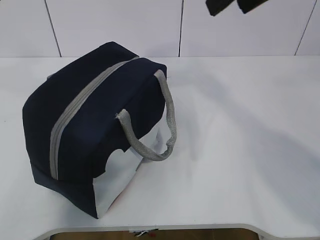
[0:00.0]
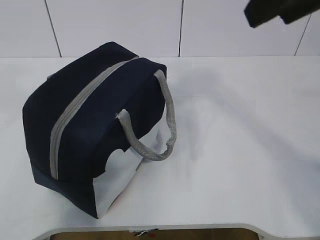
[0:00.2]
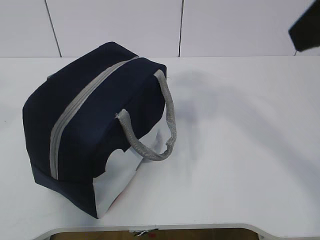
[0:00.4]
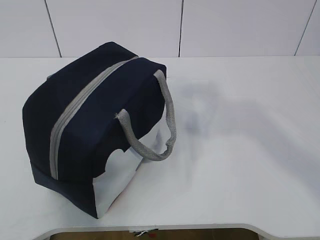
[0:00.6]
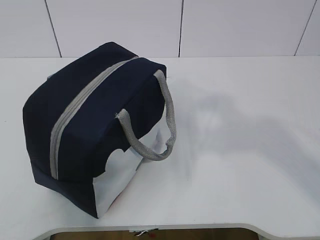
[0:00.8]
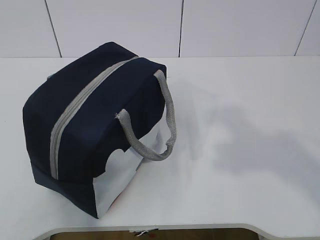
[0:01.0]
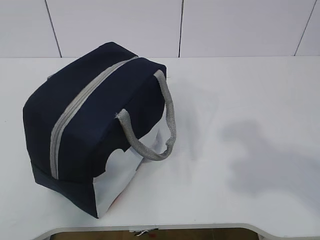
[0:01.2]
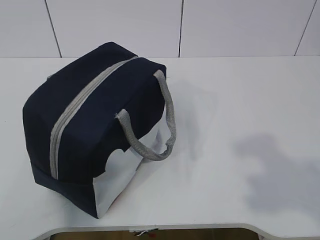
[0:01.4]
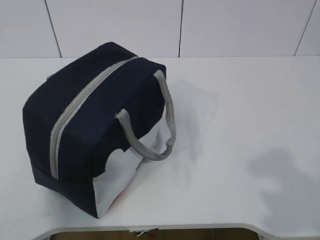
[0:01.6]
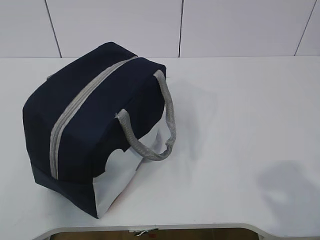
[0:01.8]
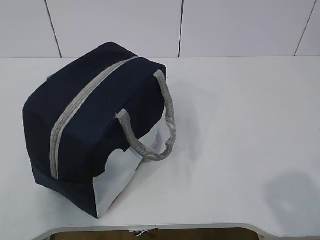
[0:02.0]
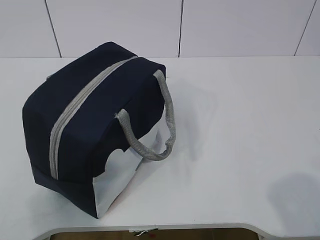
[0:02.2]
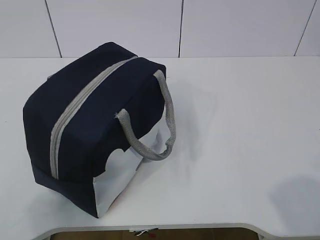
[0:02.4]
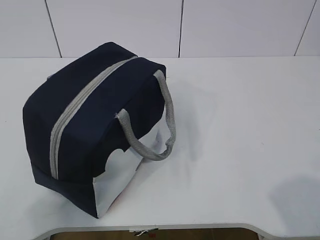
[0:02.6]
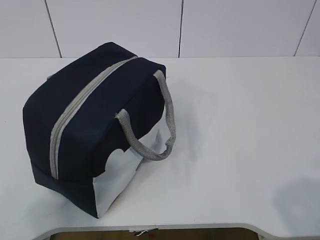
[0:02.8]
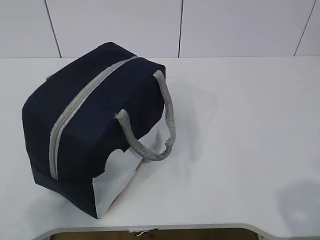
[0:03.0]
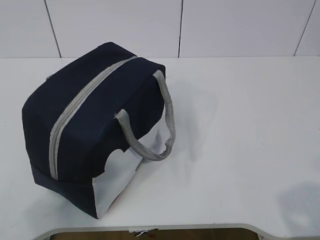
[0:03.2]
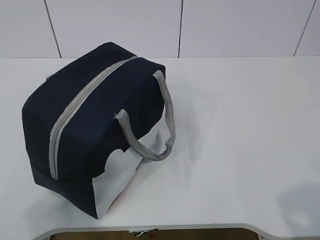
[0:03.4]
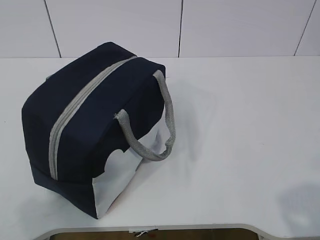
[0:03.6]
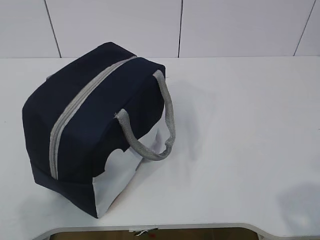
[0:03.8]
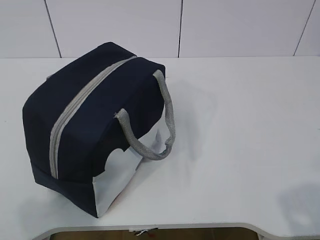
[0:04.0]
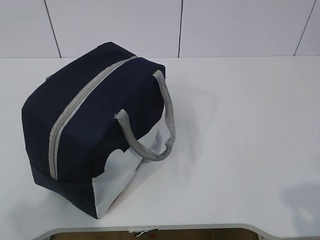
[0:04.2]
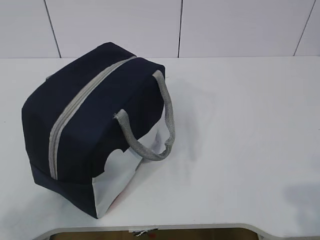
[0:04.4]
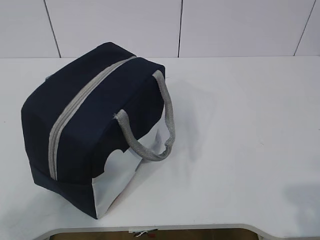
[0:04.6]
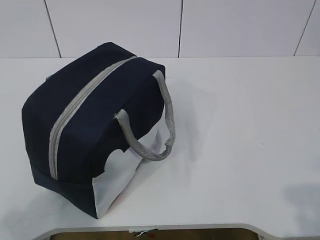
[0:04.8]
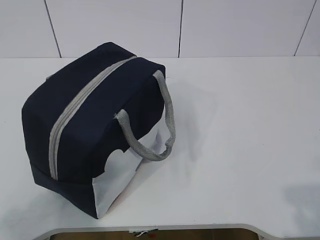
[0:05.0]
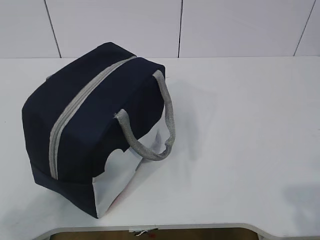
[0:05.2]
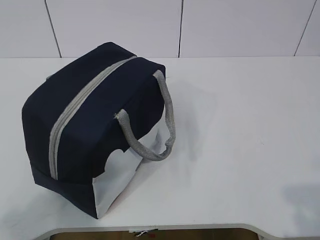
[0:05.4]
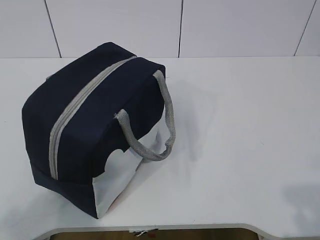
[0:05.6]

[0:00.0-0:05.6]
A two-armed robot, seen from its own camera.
0:00.0 to 0:01.4: The right gripper shifts about 30 cm backward and to the right. Meanwhile the left gripper goes roughly 25 cm backward and to the left.
0:01.4 to 0:02.8: The right gripper moves downward, about 10 cm.
0:02.8 to 0:04.2: There are only small adjustments of the grippers.

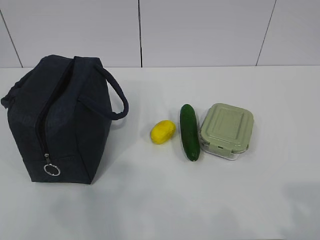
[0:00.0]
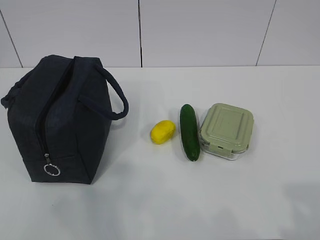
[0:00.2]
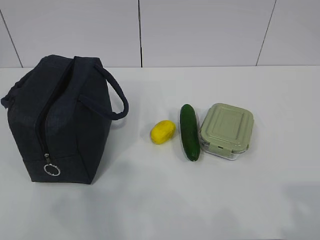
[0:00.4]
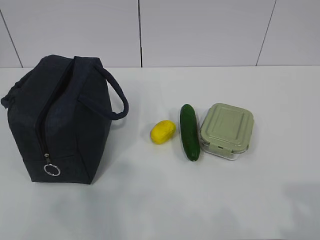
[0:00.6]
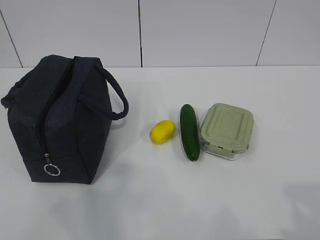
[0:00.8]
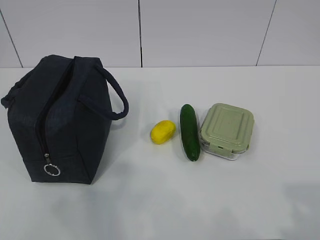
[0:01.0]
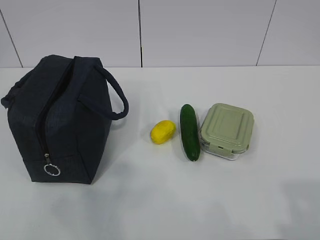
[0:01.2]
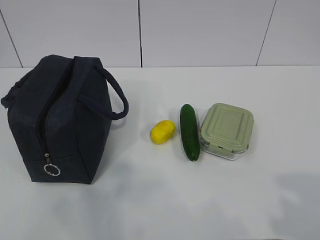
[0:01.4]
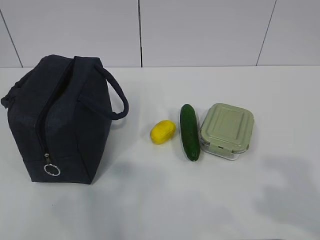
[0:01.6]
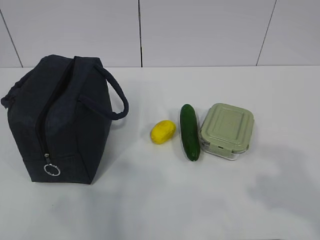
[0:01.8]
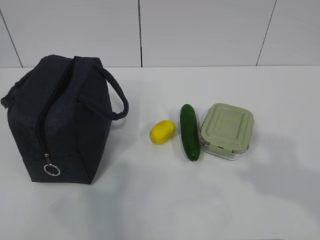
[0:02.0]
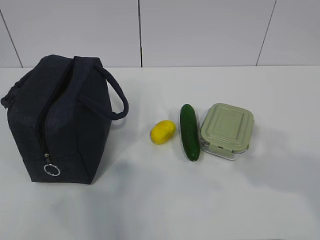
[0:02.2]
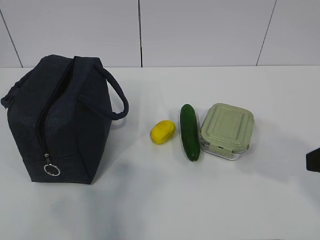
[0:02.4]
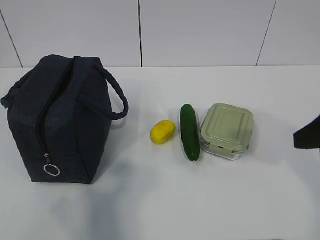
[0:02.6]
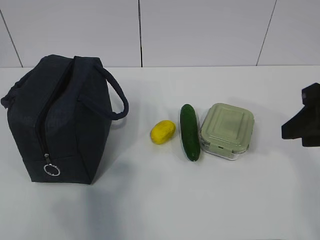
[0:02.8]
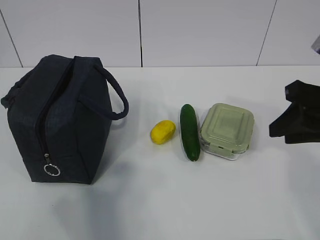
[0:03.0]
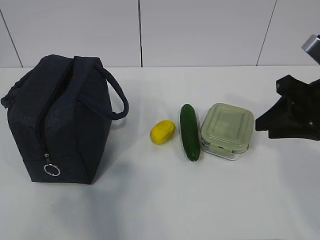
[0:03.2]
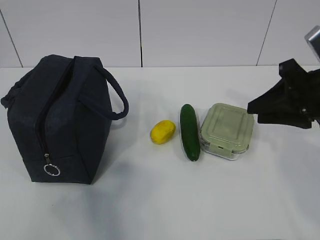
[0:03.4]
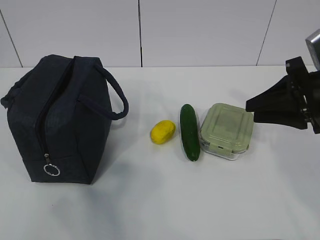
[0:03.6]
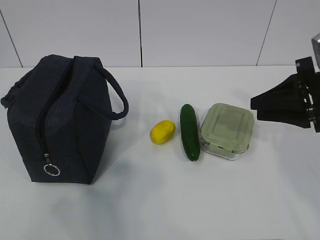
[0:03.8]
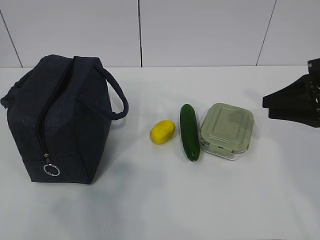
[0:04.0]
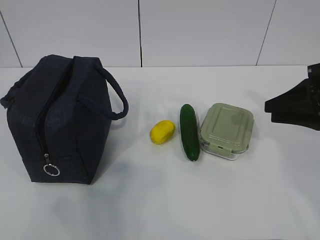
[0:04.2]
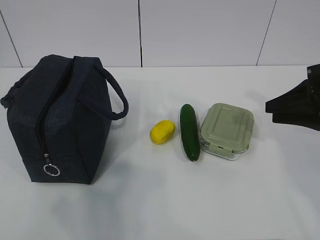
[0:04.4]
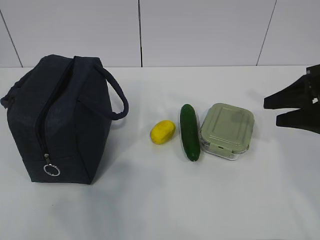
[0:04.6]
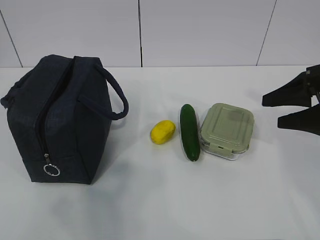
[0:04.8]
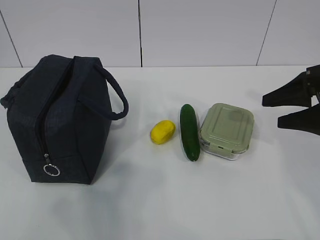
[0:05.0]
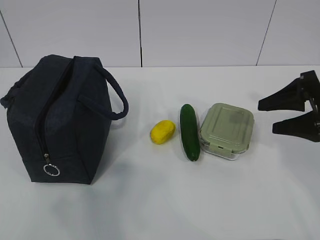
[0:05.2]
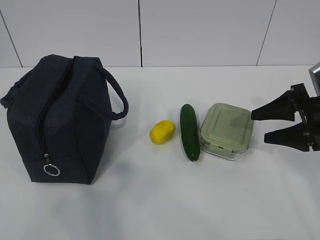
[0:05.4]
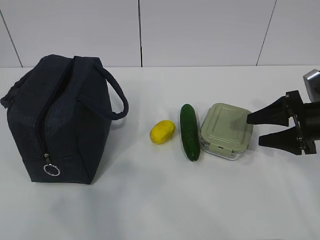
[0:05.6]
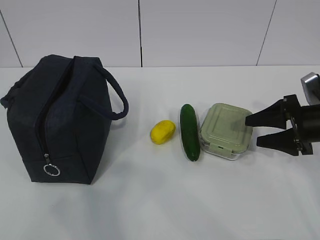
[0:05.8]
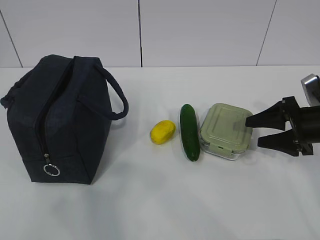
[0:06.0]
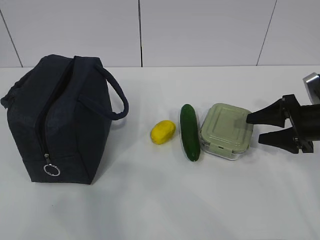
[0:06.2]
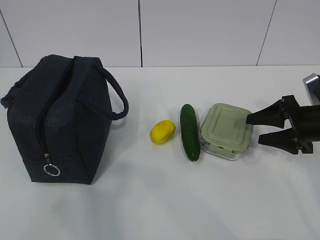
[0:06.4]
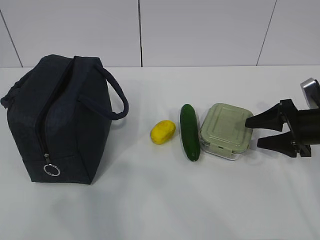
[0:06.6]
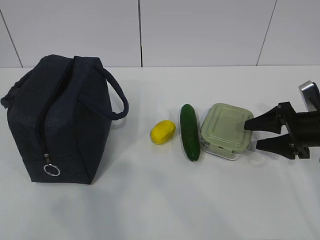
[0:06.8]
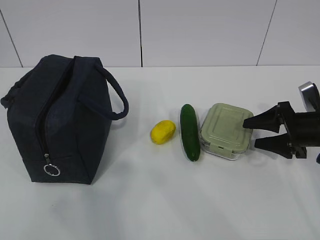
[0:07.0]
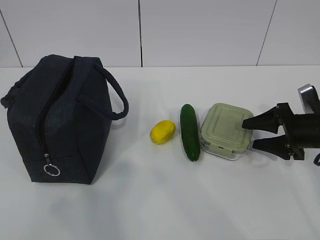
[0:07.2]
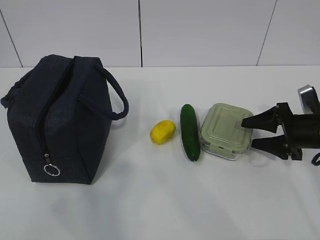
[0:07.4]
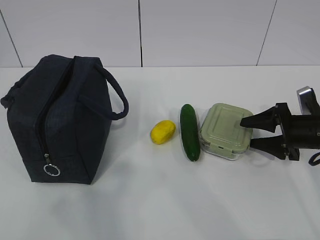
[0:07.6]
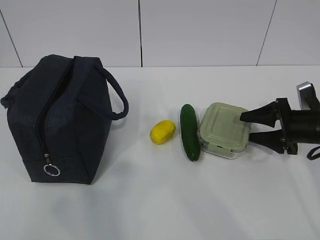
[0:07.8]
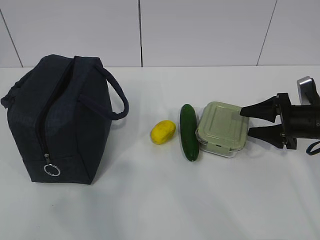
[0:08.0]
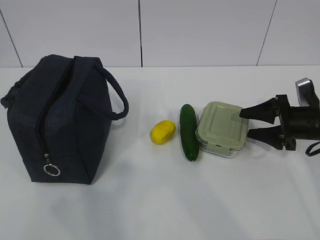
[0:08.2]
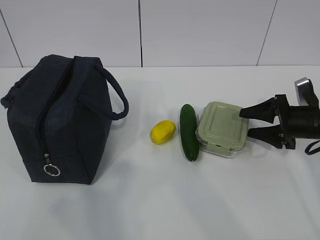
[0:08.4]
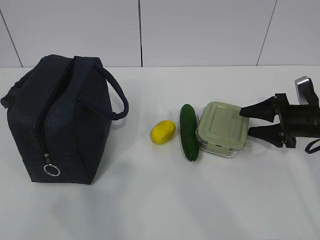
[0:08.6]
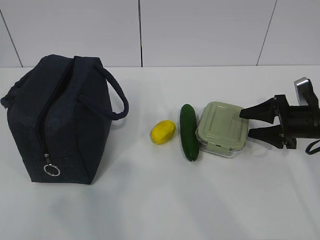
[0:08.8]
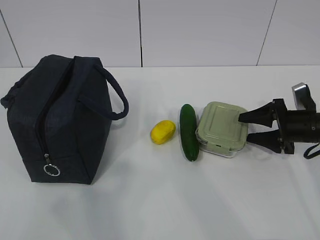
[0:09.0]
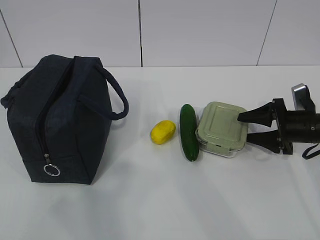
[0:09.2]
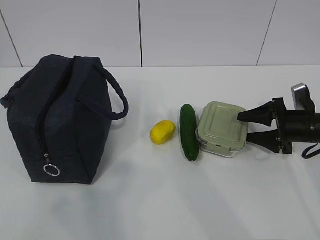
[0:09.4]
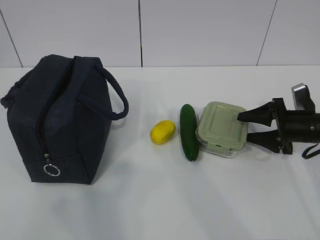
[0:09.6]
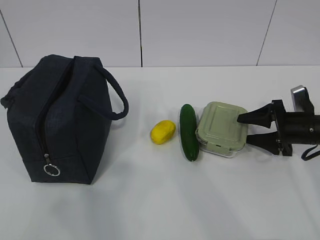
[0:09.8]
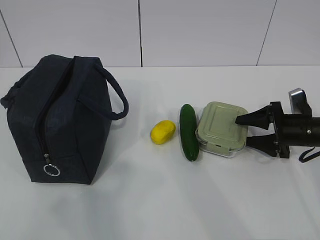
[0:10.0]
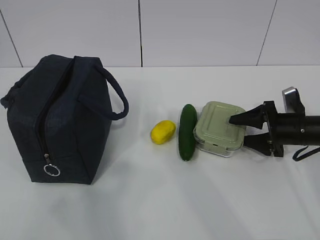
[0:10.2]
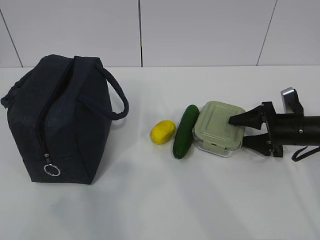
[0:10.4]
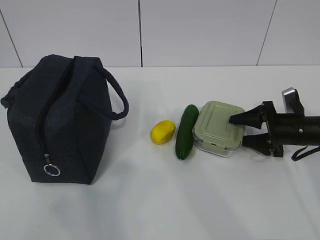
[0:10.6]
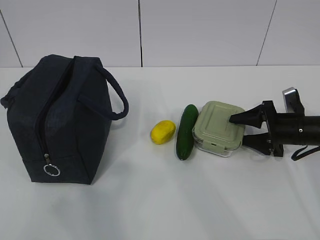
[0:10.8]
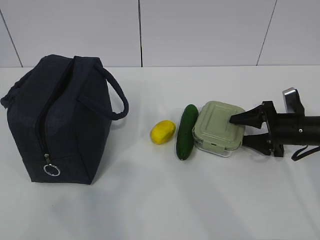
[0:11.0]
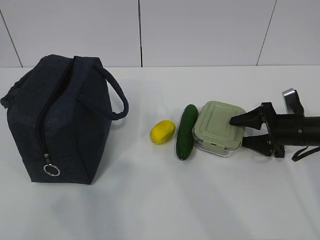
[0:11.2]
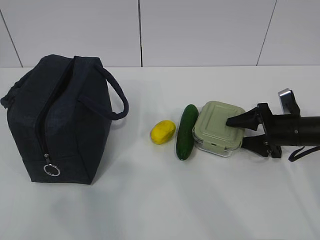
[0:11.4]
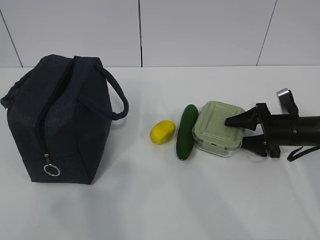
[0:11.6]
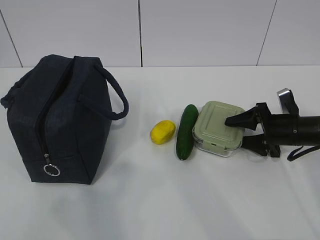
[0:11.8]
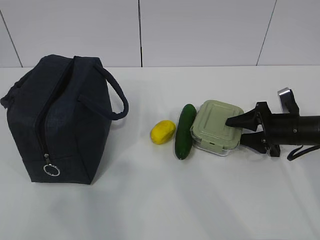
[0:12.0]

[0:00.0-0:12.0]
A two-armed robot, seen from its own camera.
Step, 0:00.0 to 0:10.0: Grab the lunch box with your right hand.
0:01.6 to 0:03.0: The right gripper goes some 20 cm forward.
0:03.0 to 0:04.4: The right gripper travels to the right by roughly 5 cm.
0:04.4 to 0:06.0: The right gripper is displaced downward by some 10 cm, and opens.
0:06.0 to 0:07.6: The grippers move only a little.
0:07.6 to 0:10.4: The grippers make only small movements.
0:10.4 to 0:12.0: The two grippers keep their place.

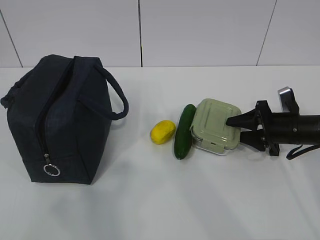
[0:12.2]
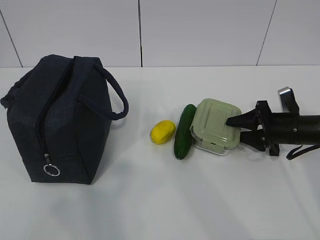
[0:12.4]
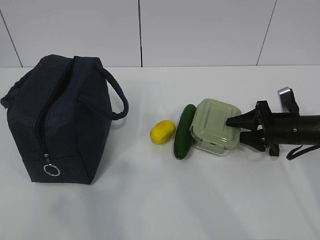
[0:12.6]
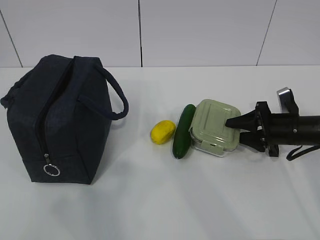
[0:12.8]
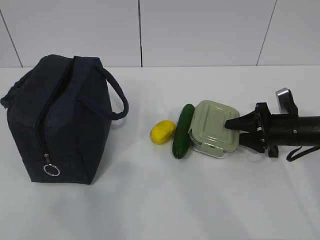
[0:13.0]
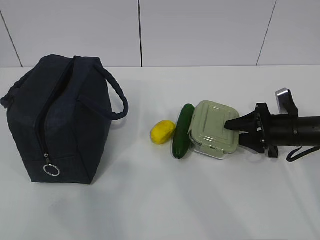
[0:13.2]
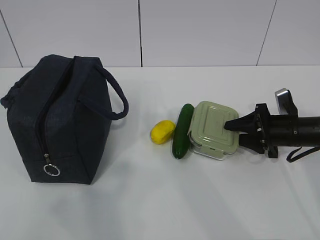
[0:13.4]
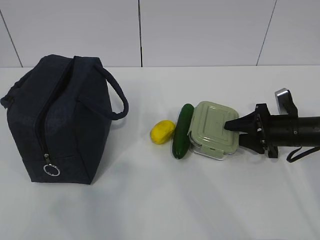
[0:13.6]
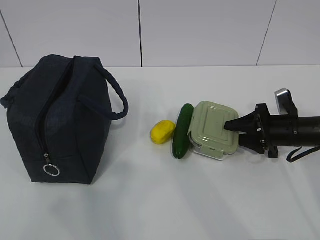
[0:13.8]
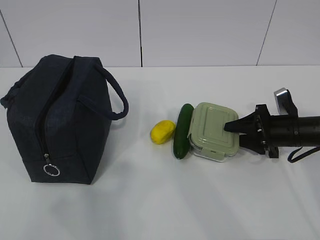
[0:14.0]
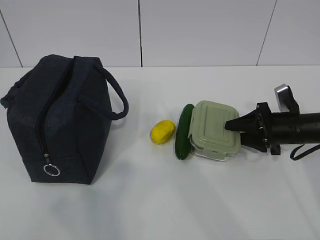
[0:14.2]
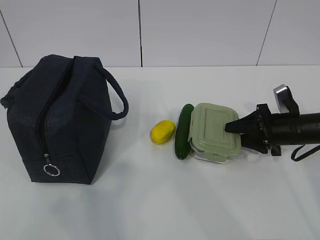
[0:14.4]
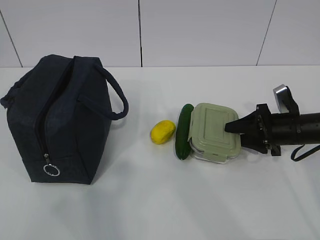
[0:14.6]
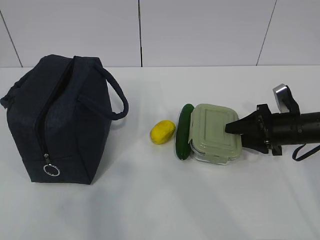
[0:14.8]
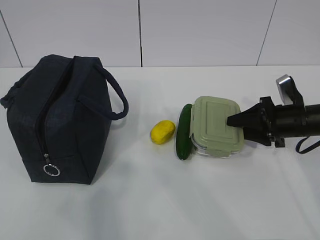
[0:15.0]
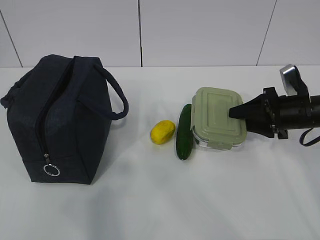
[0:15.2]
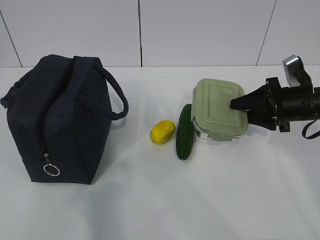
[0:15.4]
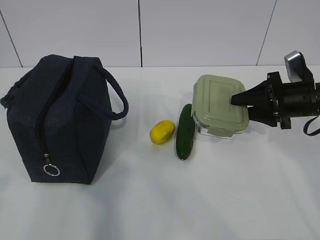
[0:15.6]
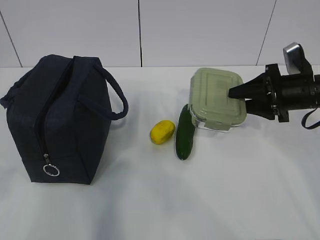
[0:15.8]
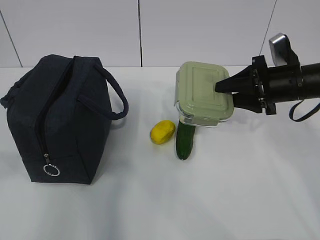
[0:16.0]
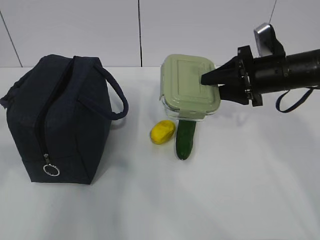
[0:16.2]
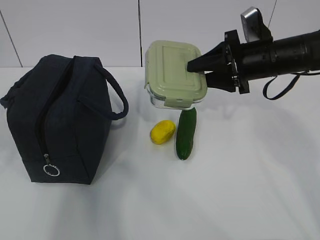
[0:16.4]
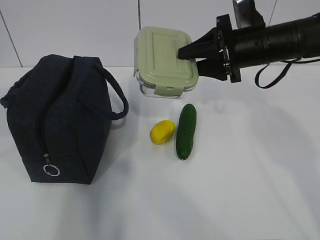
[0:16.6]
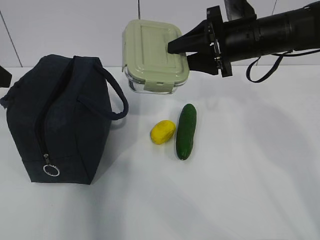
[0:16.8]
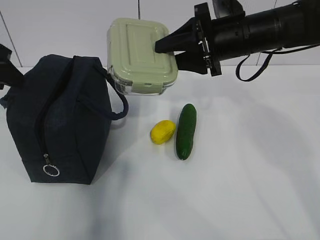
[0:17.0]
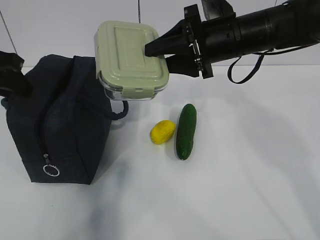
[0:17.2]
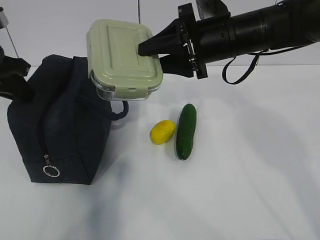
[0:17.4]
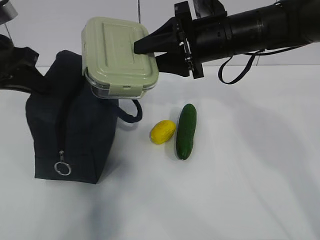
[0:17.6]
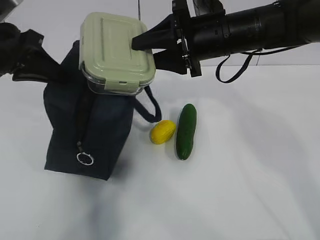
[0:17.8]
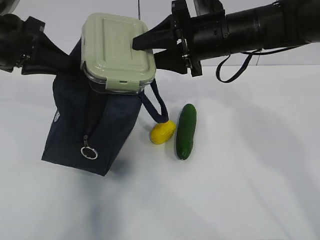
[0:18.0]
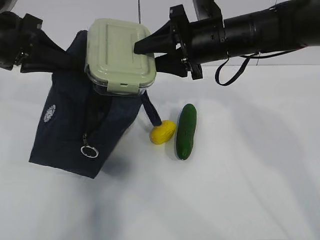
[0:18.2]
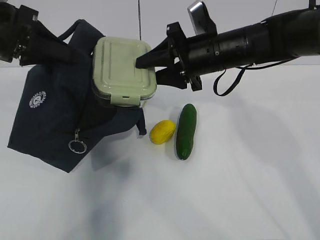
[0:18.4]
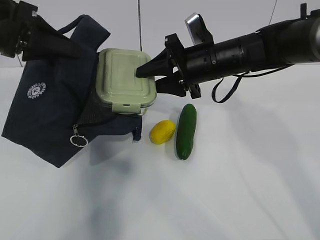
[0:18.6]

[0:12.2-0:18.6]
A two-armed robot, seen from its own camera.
Step, 0:12.2 to 0:14.8: Grab the lunch bag with your left hand.
Step, 0:15.0 to 0:17.6: Place it into the bag with your right hand.
0:12.2 to 0:13.8: Both grippers stay put.
0:13.8 to 0:15.4: The right gripper moves upward, roughly 5 cm.
0:15.4 to 0:17.0: The left gripper moves forward, approximately 30 cm; the right gripper travels to the left and upward by some 20 cm.
0:17.0 to 0:18.6: The left gripper ends up some 5 cm from where it was, and closes up. Meanwhile the right gripper ends up roughly 5 cm from where it was.
